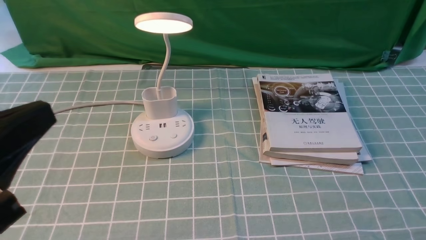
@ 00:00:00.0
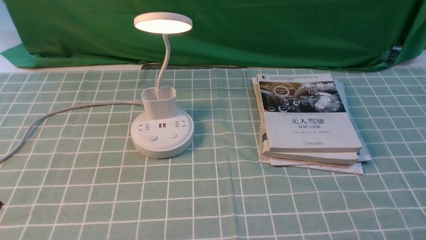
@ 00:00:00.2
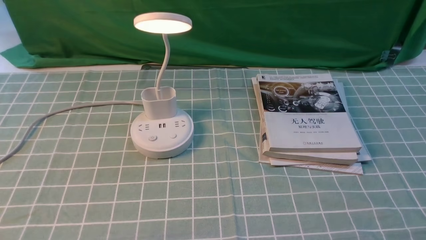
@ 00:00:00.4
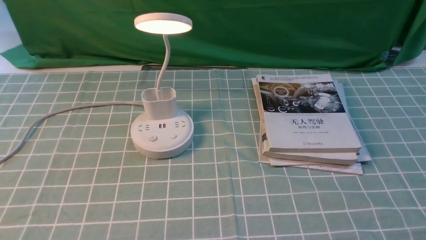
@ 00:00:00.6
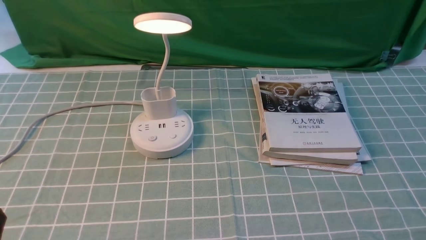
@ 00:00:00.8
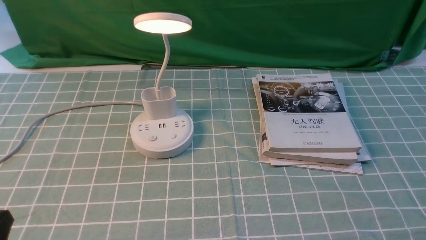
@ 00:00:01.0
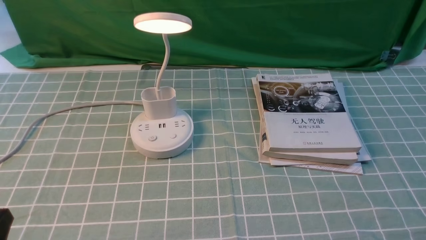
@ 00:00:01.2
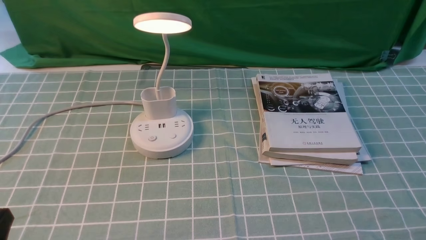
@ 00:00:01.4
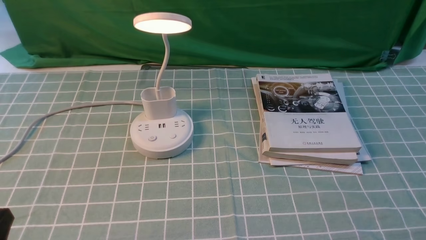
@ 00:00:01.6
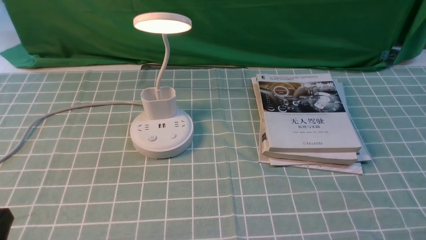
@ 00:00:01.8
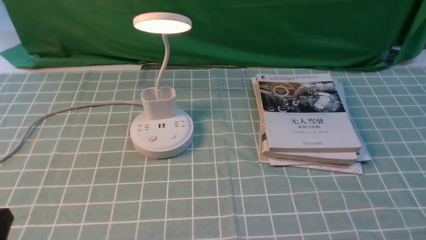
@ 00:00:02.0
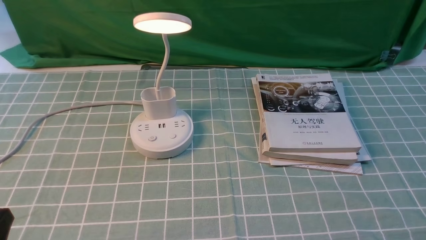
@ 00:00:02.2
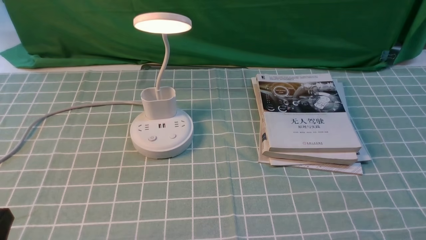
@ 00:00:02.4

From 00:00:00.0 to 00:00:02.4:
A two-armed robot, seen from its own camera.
From 00:00:00.0 to 00:00:01.2: The left gripper shifts roughly 15 cm downward.
From 00:00:01.2 to 00:00:02.4: Both grippers stay about where they are.
